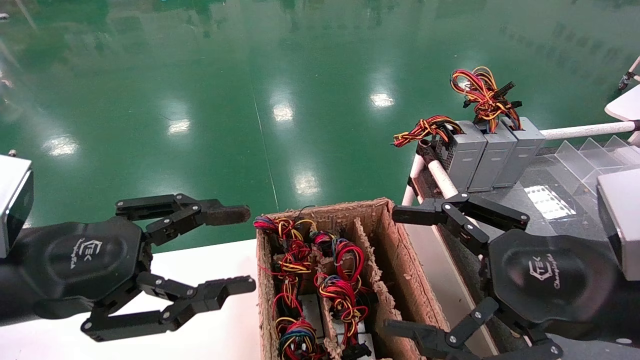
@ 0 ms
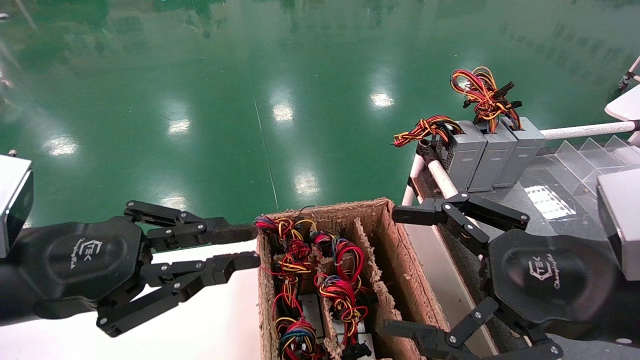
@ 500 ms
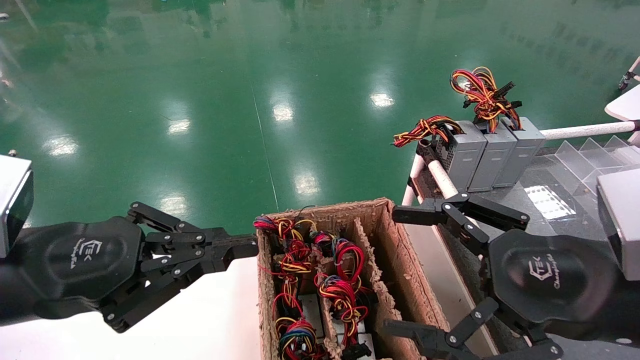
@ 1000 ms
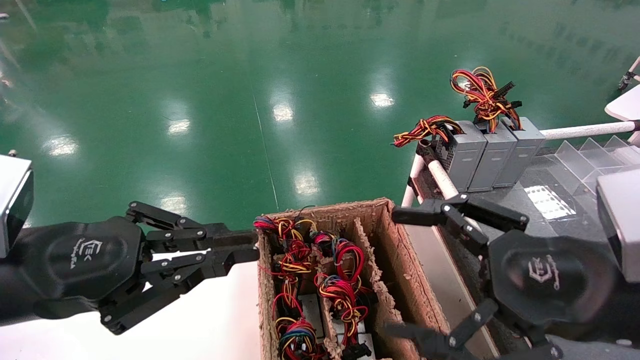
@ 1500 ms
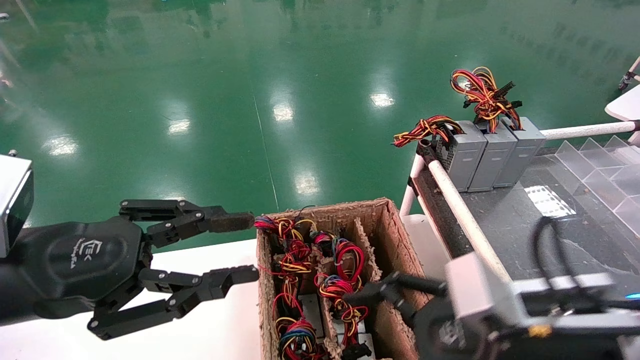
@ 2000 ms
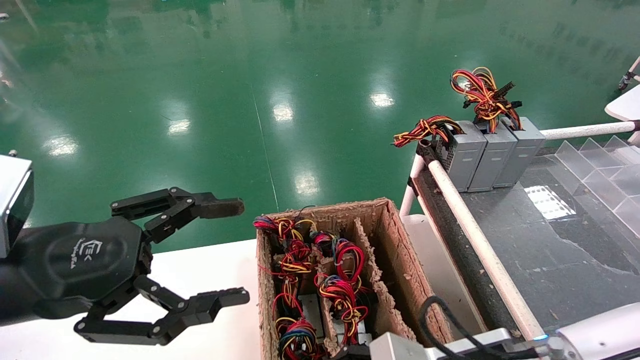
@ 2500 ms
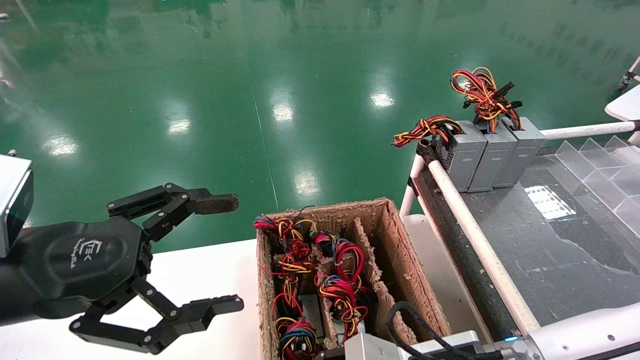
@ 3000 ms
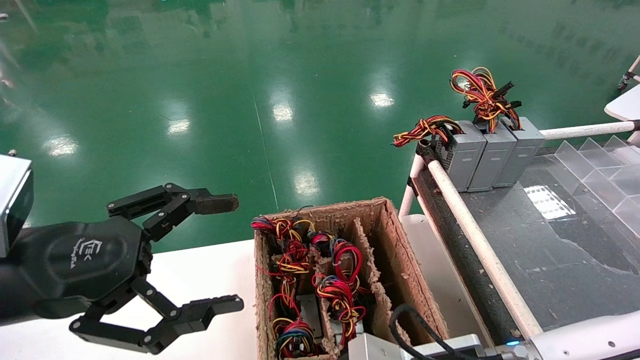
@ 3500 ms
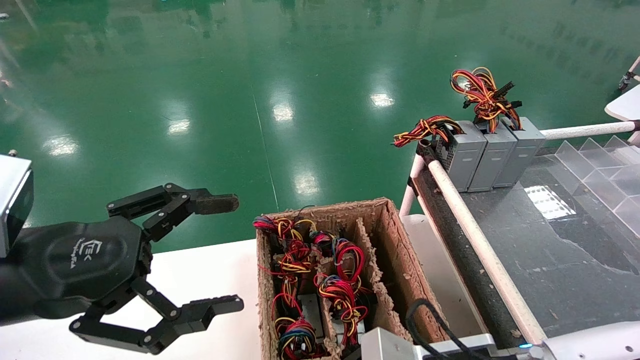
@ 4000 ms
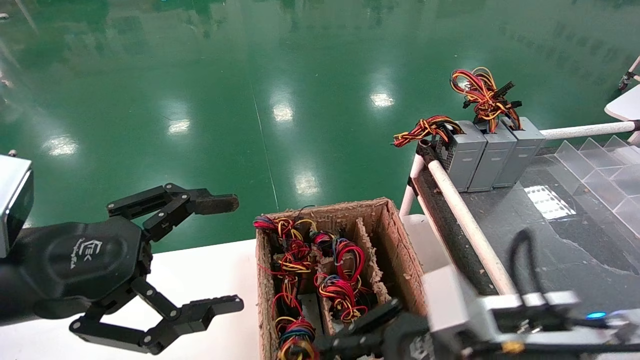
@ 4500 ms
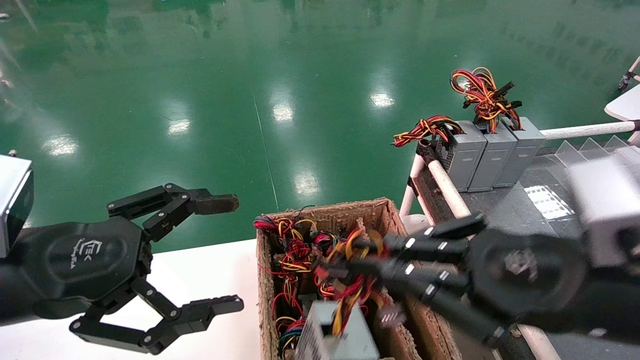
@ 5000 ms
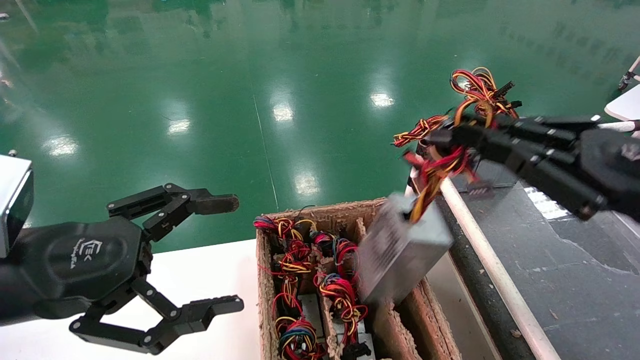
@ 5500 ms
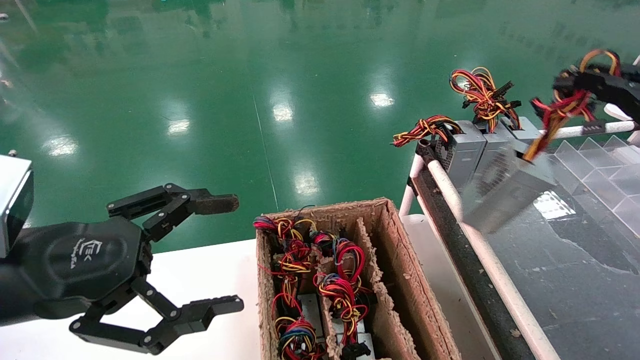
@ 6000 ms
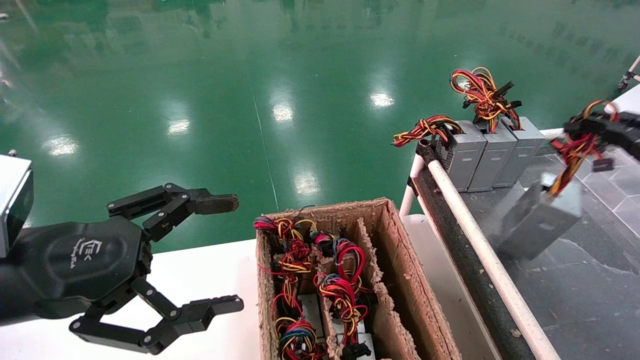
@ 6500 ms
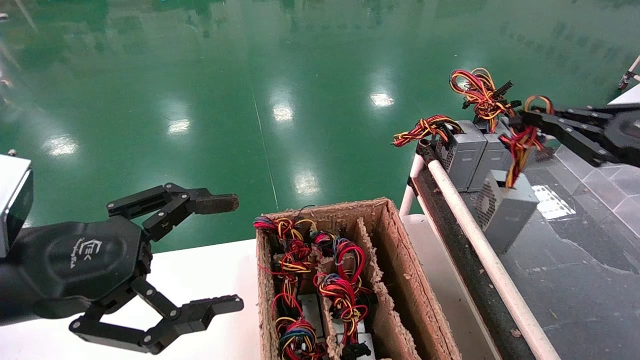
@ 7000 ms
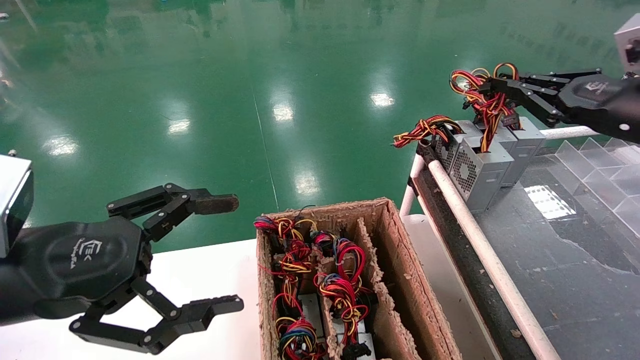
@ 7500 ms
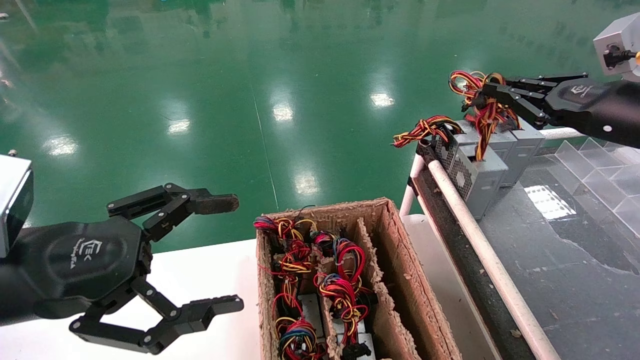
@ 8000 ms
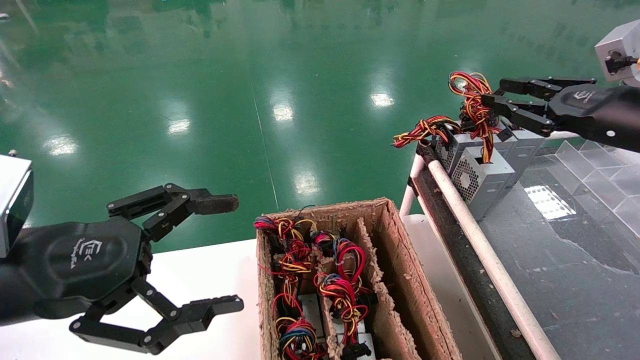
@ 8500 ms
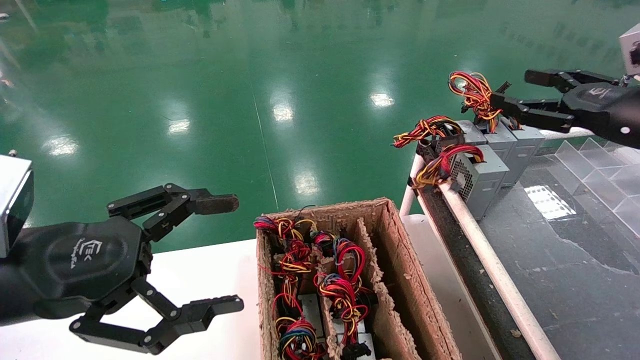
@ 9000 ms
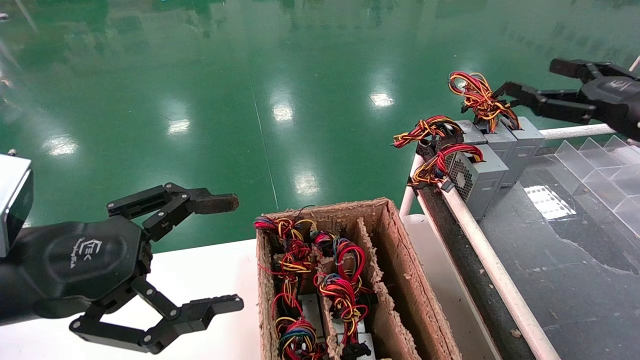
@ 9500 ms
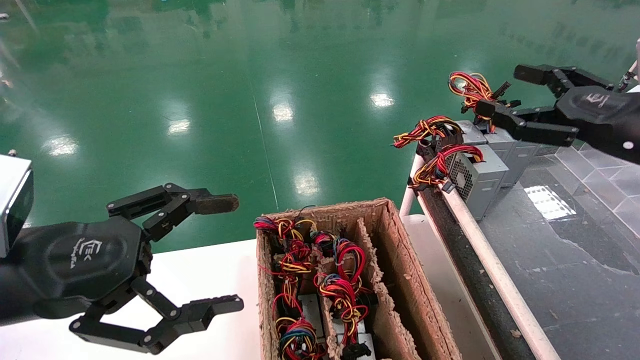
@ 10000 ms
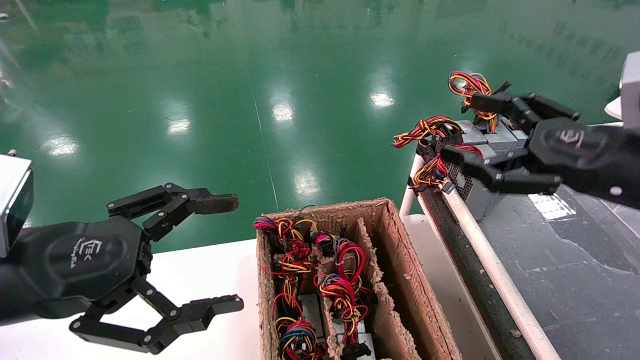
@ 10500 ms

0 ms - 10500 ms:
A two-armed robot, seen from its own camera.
Step, 1000 ms - 3500 ms: Grab and lift the power supply from the large box.
Step, 4000 ms - 8000 ms: Place the power supply on the operating table.
0 ms - 2000 ms: The right gripper moves downward, some 5 cm.
2000 ms - 4000 ms: The right gripper travels downward and to the left by some 10 cm, and closes. Meanwhile the left gripper opens up.
4000 ms - 6500 ms: The right gripper goes about 35 cm to the right and upward.
6500 ms - 8500 ms: The right gripper shifts some 10 cm forward and to the left.
8500 ms - 10500 ms: The right gripper goes approximately 10 cm backward and to the left, and opens up.

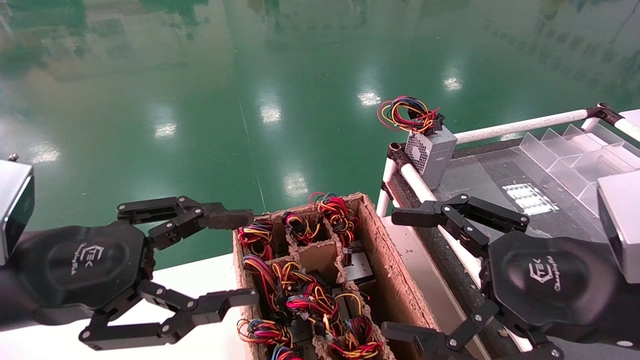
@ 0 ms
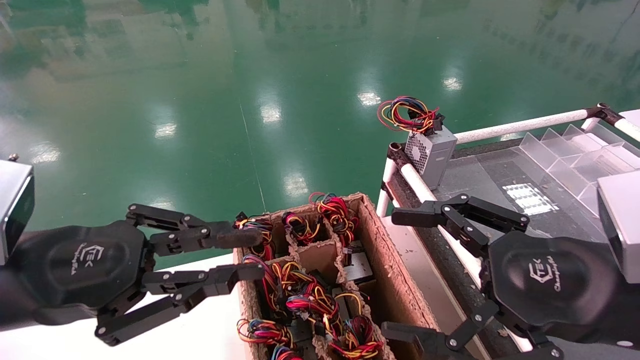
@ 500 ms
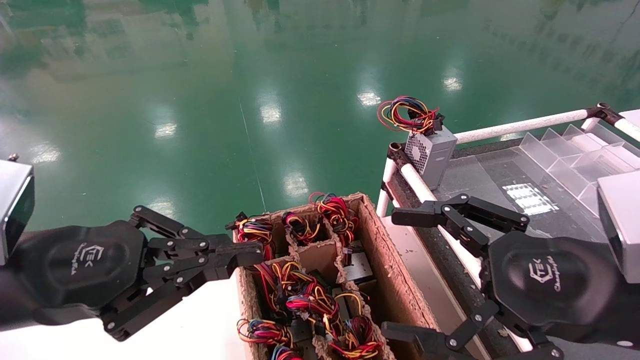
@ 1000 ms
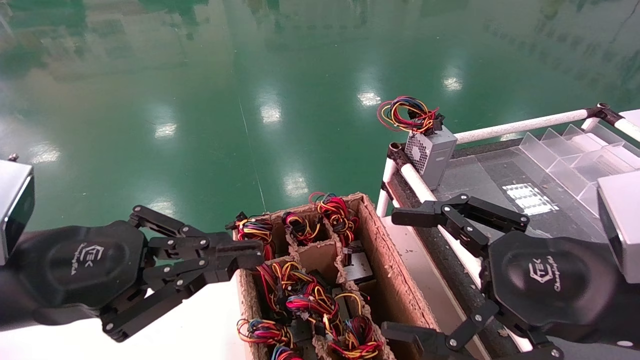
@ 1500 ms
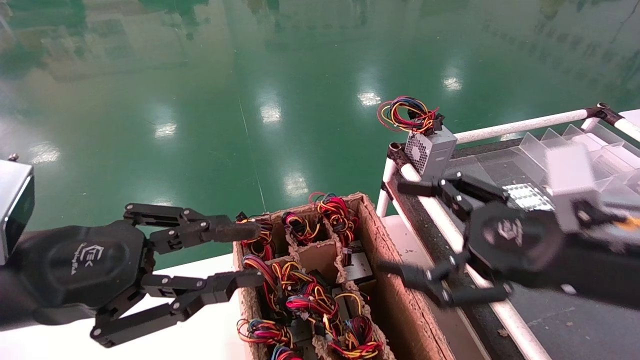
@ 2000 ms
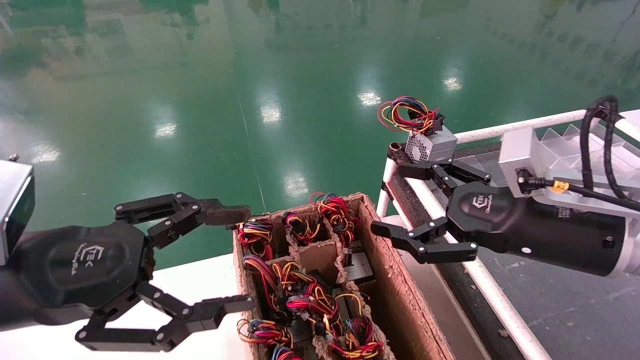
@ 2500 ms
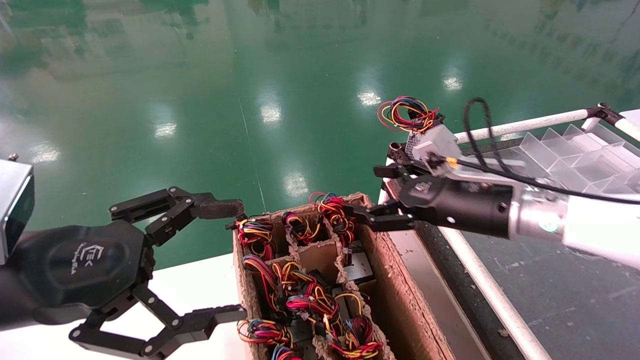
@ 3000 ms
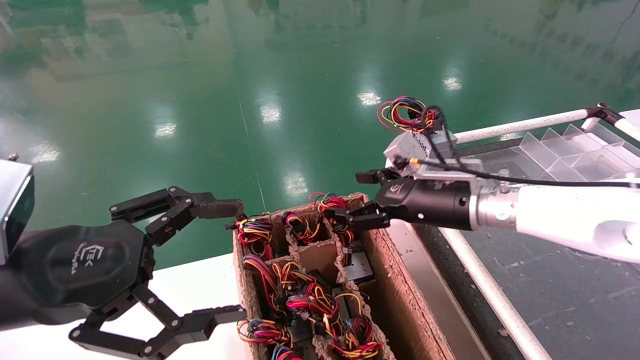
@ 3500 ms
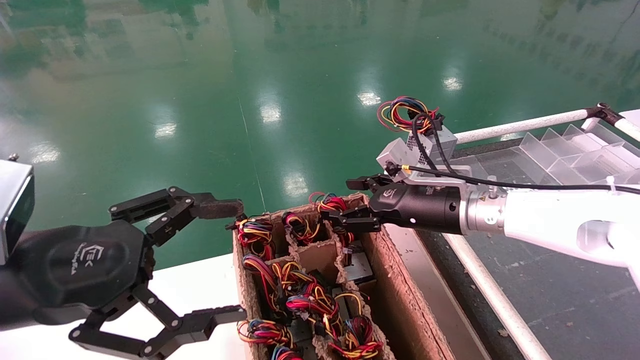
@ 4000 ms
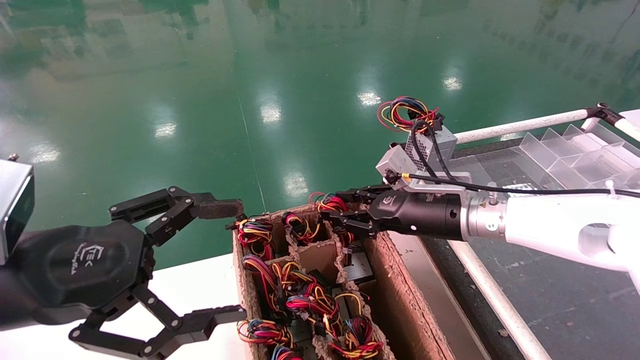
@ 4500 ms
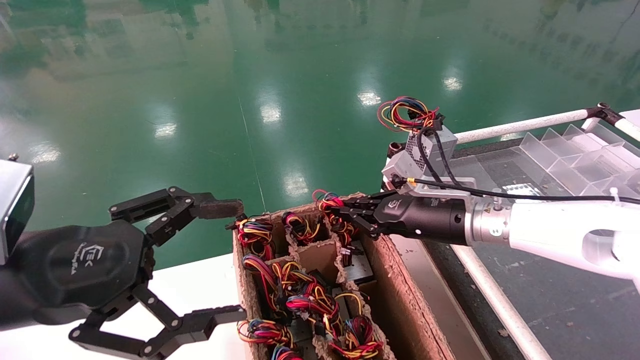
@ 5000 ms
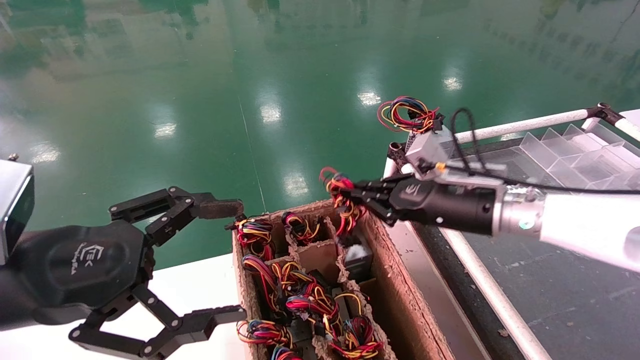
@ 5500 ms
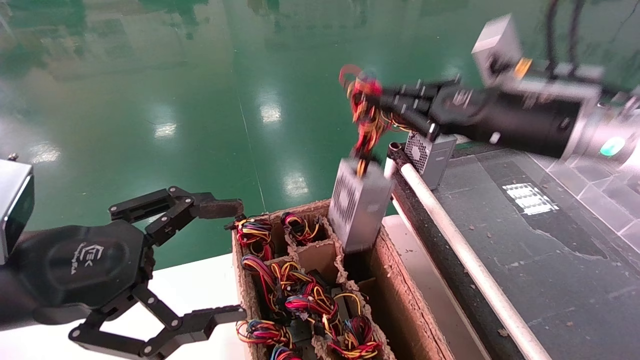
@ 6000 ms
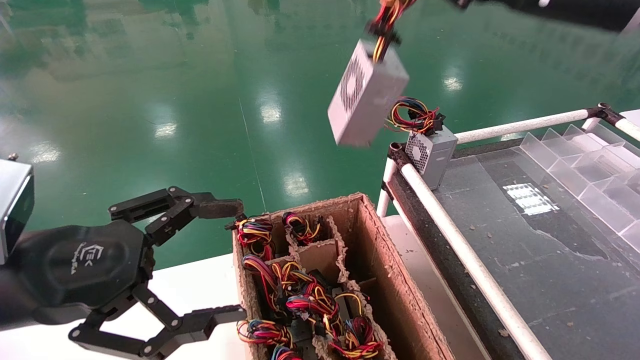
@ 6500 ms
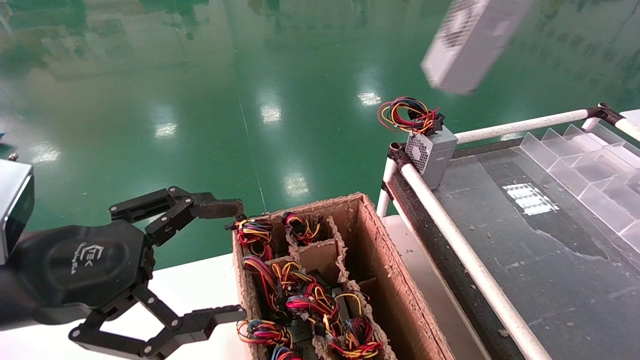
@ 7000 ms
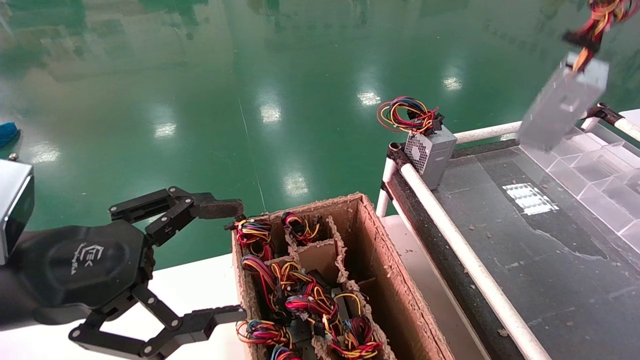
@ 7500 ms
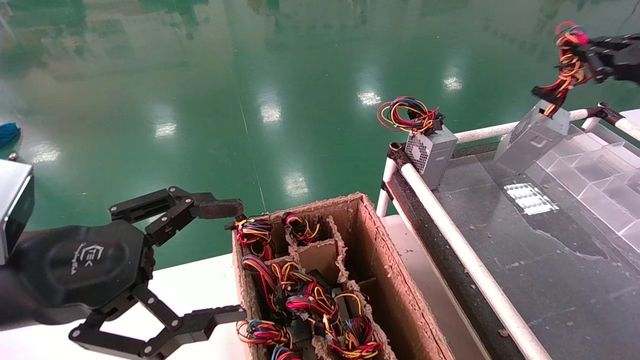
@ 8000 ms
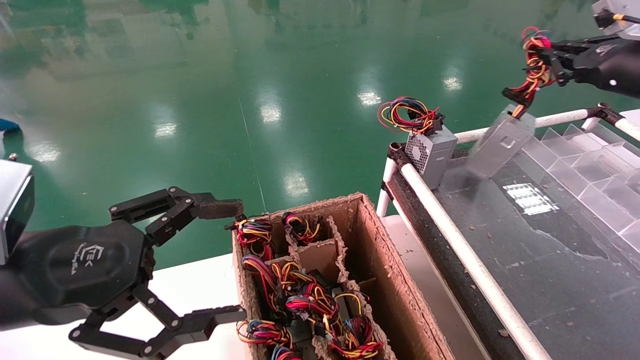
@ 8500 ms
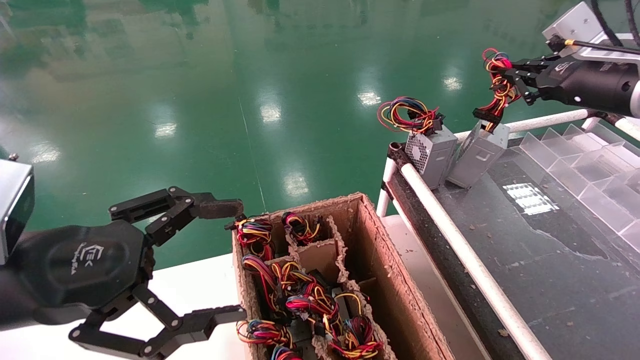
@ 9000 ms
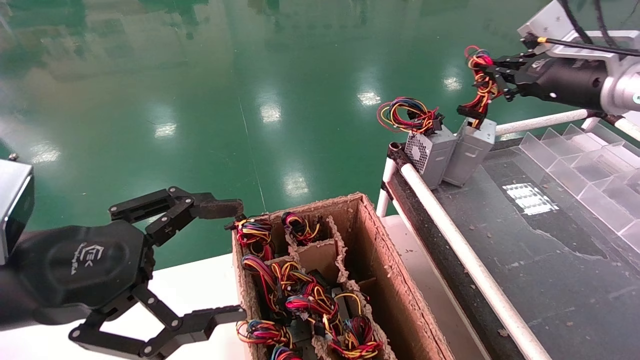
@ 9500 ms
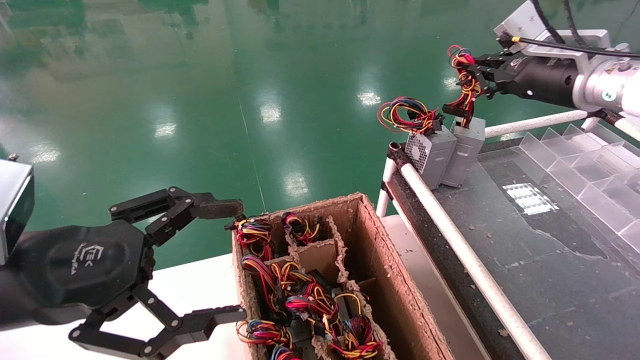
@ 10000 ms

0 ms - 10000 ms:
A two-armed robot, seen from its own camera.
Step, 1500 ms - 5000 ms: Grab and lift the power supply from the large box.
0 ms - 2000 ms: The right gripper goes approximately 5 cm forward. The left gripper closes up.
2000 ms - 4000 ms: The right gripper shifts approximately 20 cm forward and to the left, while the left gripper opens.
4000 ms - 6000 ms: The right gripper shifts about 15 cm upward, to the right and backward, and closes its fingers.
6000 ms - 8000 ms: The right gripper goes roughly 20 cm to the right.
8000 ms - 10000 ms: The right gripper is displaced to the left and forward by some 15 cm.
